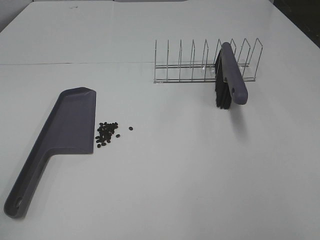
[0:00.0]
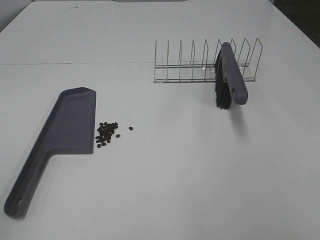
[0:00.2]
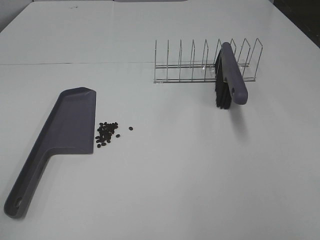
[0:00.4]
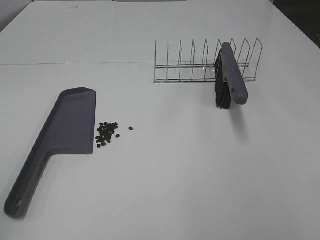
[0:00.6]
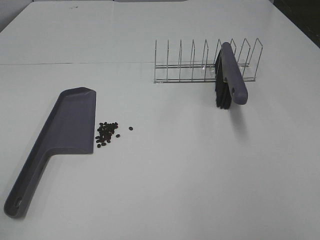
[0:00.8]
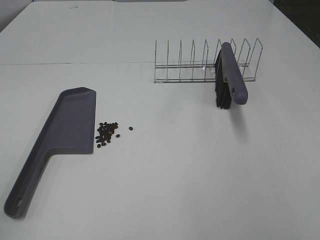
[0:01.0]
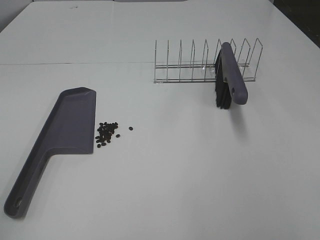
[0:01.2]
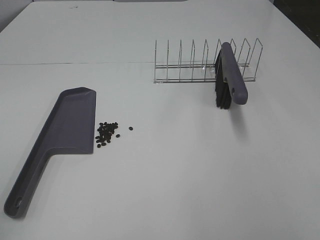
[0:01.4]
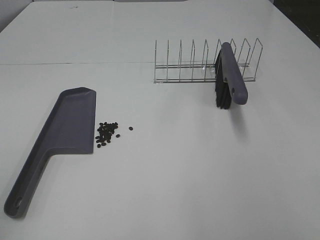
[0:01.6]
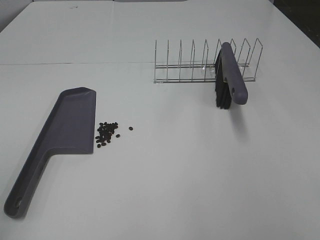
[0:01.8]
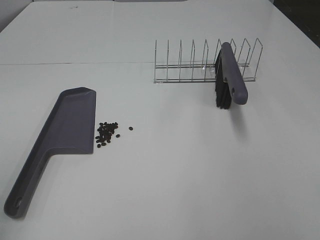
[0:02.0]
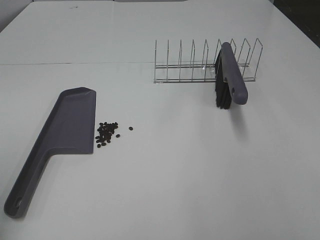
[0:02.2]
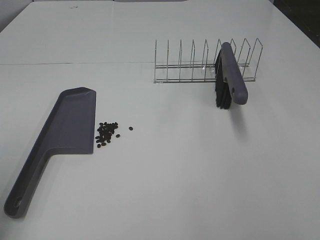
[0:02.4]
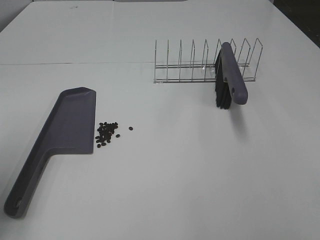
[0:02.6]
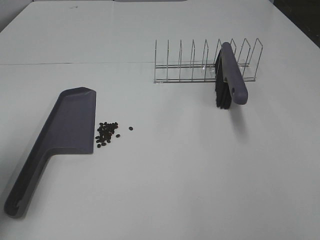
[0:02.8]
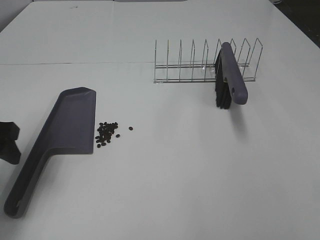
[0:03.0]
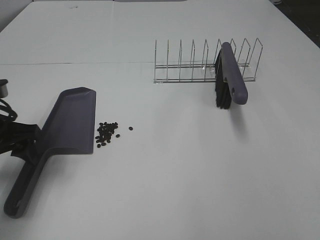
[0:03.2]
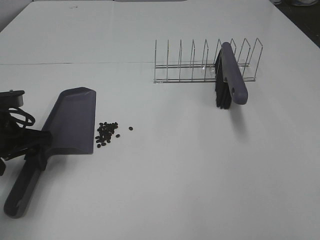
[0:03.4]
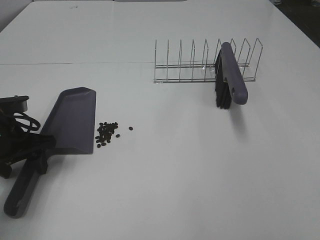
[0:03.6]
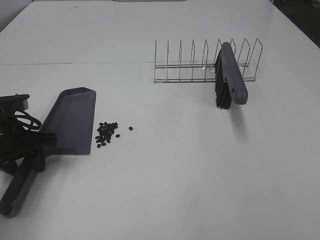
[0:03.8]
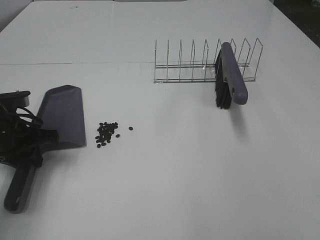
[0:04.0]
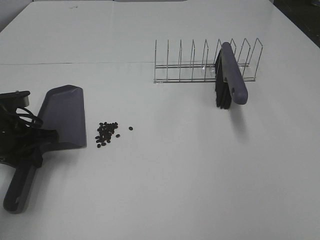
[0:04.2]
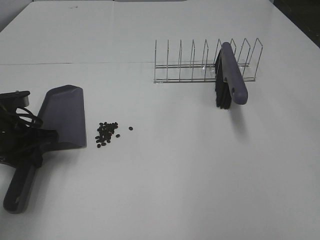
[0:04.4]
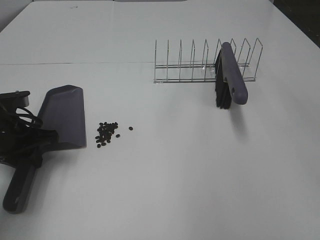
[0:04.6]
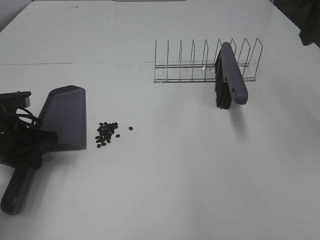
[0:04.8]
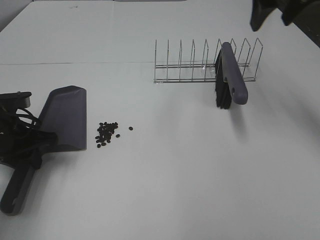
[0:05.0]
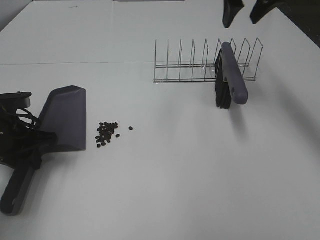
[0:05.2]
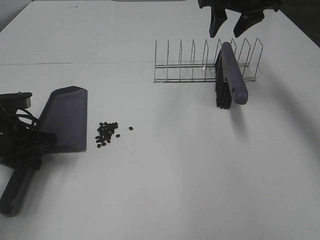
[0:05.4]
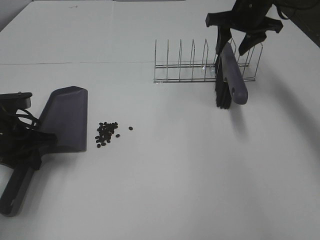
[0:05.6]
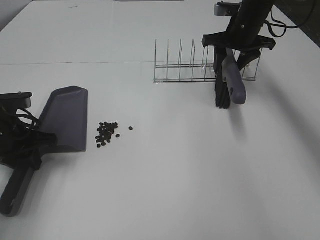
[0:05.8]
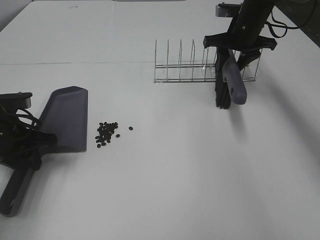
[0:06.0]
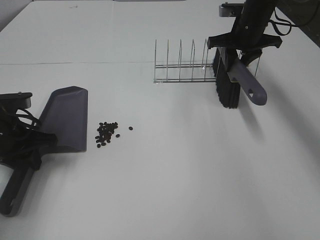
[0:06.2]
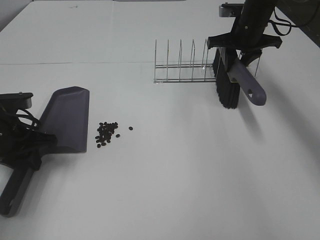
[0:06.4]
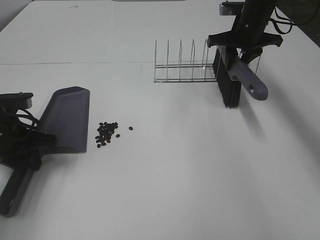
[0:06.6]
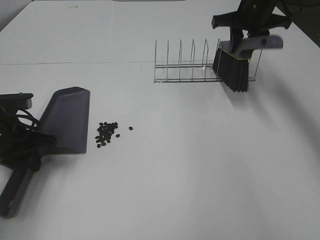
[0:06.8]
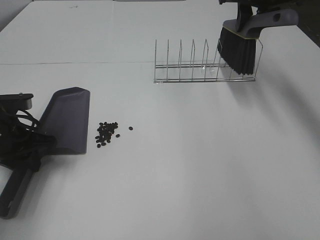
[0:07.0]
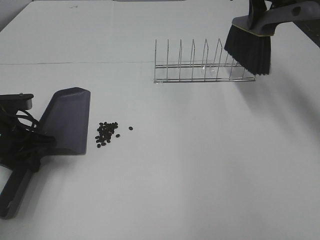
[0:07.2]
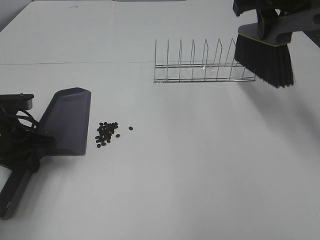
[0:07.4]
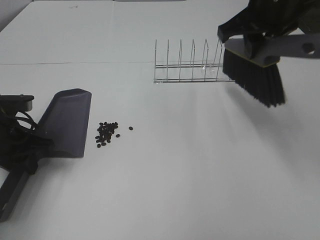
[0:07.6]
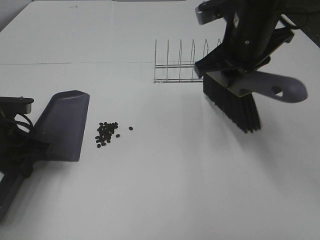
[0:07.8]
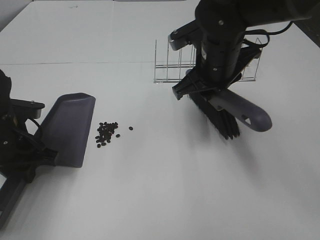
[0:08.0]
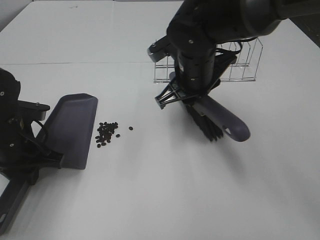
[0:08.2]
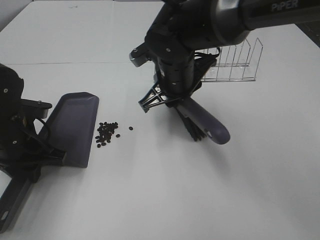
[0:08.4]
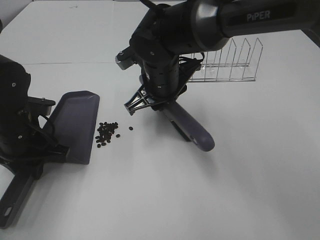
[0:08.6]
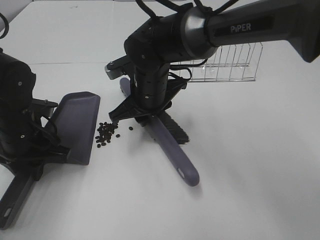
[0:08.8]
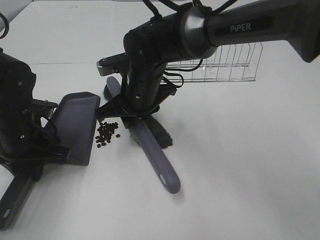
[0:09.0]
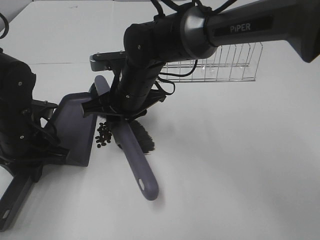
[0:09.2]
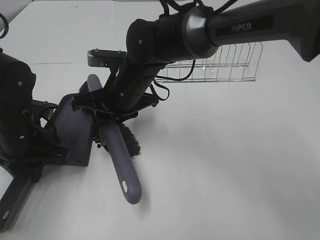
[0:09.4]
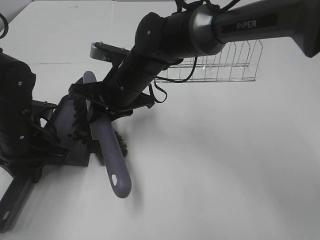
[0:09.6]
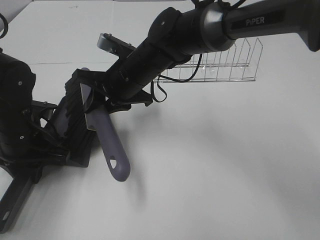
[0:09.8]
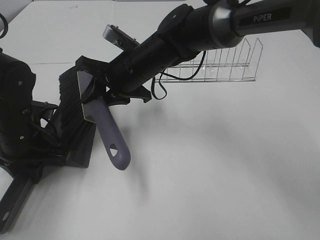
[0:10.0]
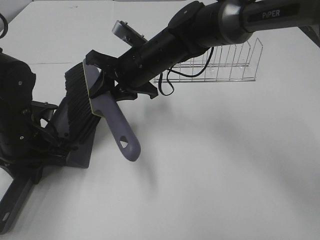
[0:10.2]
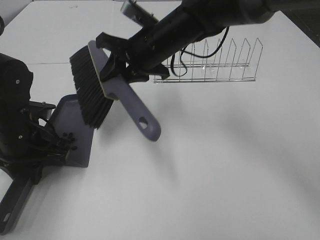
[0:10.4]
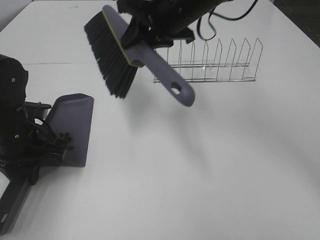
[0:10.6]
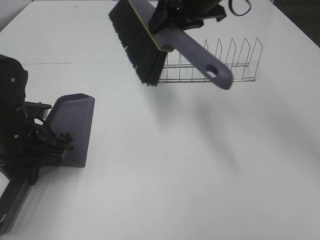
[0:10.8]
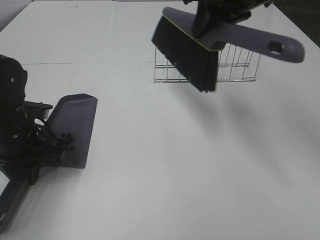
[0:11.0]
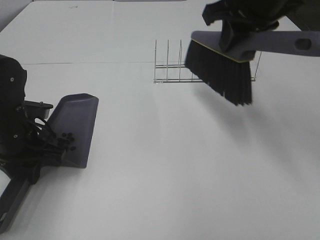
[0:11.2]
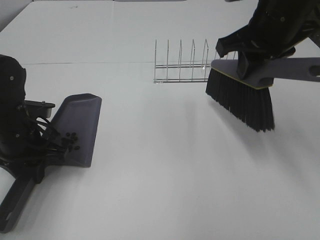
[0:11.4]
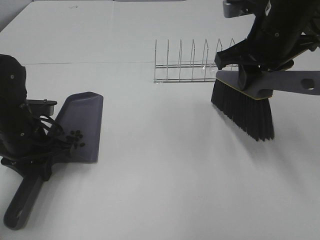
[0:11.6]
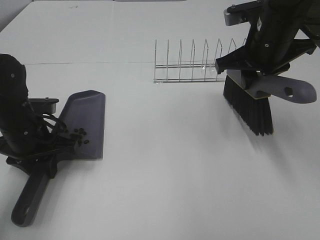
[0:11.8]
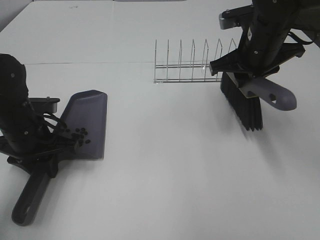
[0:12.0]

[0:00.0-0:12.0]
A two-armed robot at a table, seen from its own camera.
Task of the whole recording: Sweep Coffee Bean.
Step, 0.0 to 3.8 s: Left hand: grab the dustpan.
Step, 3.8 to 6.4 s: Right hand:grab the broom.
Step, 6.6 to 10.0 s: Right hand:sweep the coffee beans into the dustpan.
1.6 to 3.0 s: The left gripper heads forward and downward, covering some 25 cm.
3.0 to 4.4 s: The left gripper moves downward and forward, about 10 cm, and closes up.
4.4 to 6.0 s: The right gripper is displaced forward and downward by approximately 40 cm, and closes.
6.0 to 7.6 s: The right gripper is displaced backward and upward by some 20 cm.
7.6 to 9.0 s: The right gripper travels to the left and downward by about 25 cm.
9.0 to 10.4 s: The right gripper heads upward, covering approximately 5 cm.
10.4 to 12.0 s: The right gripper heads to the right, covering some 15 cm.

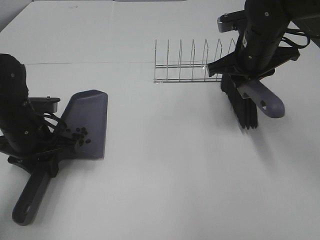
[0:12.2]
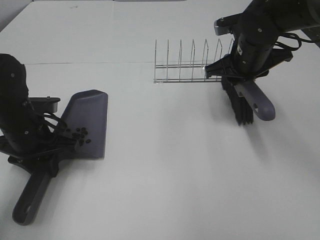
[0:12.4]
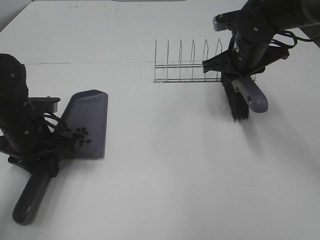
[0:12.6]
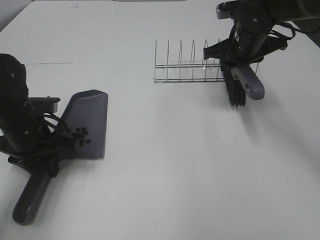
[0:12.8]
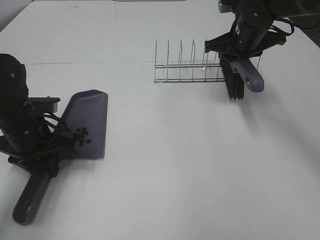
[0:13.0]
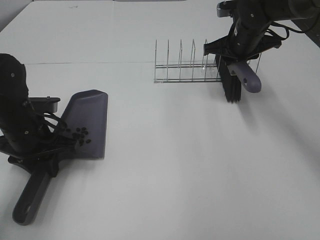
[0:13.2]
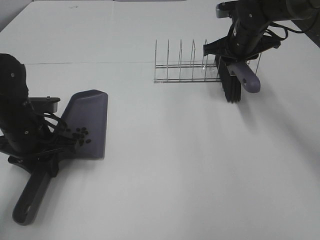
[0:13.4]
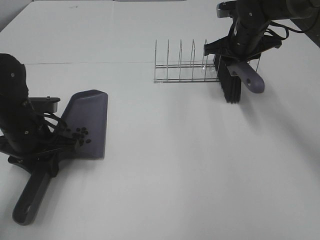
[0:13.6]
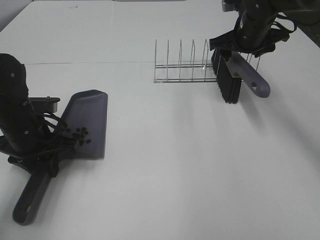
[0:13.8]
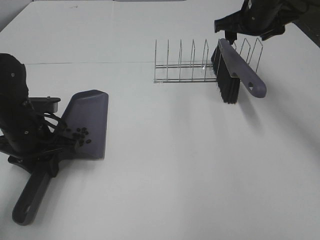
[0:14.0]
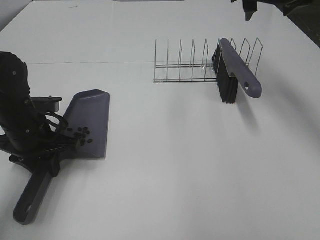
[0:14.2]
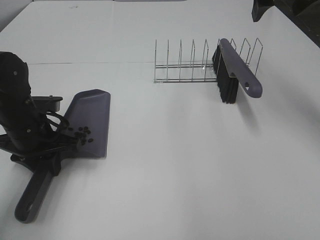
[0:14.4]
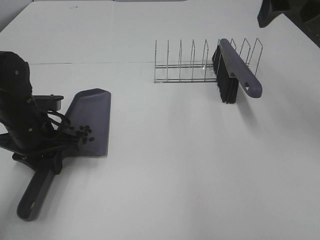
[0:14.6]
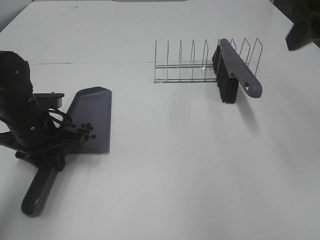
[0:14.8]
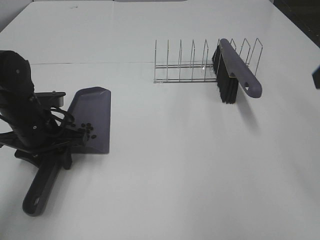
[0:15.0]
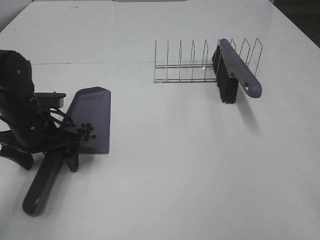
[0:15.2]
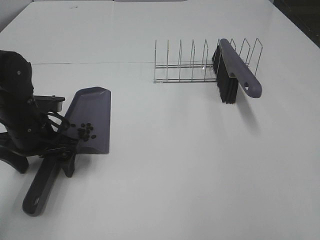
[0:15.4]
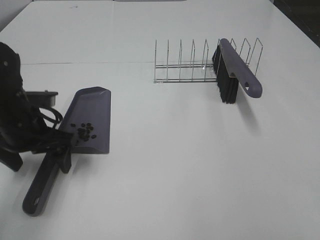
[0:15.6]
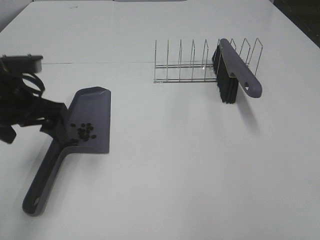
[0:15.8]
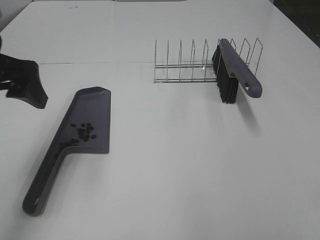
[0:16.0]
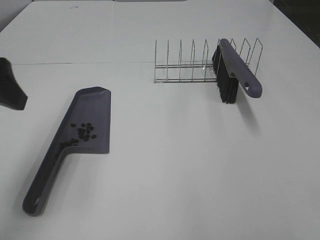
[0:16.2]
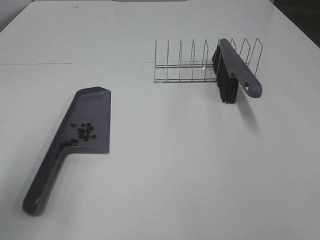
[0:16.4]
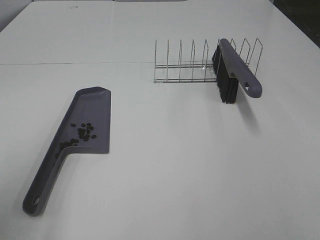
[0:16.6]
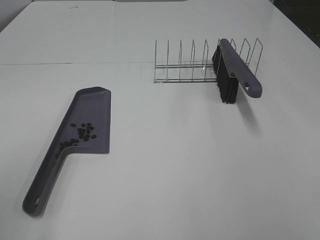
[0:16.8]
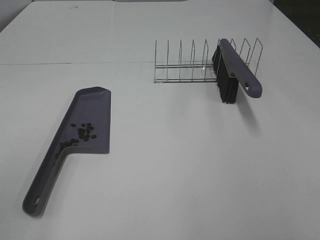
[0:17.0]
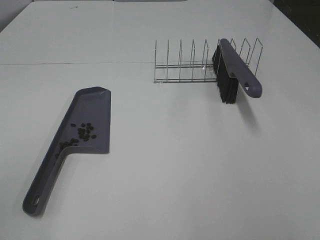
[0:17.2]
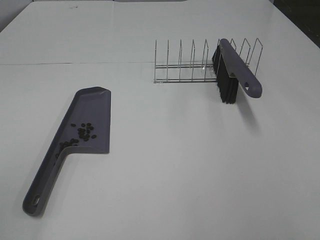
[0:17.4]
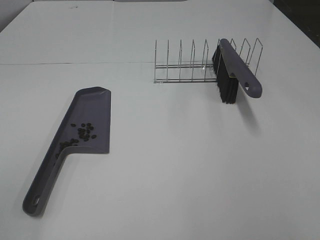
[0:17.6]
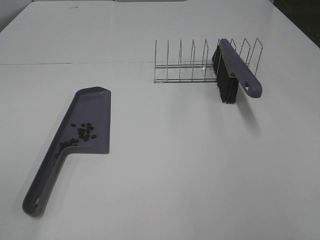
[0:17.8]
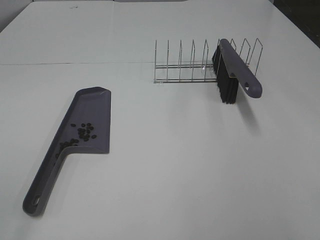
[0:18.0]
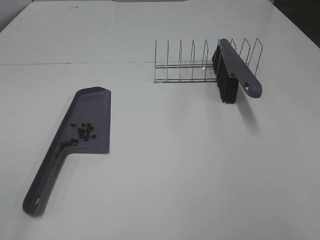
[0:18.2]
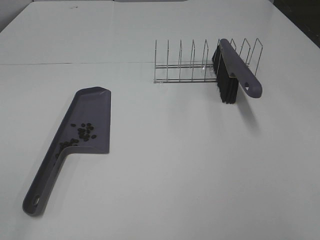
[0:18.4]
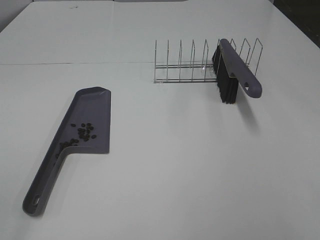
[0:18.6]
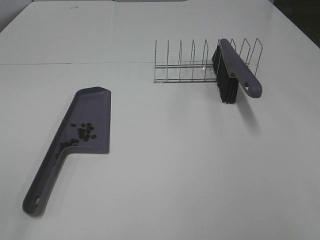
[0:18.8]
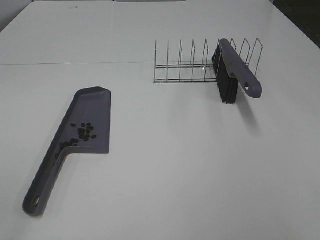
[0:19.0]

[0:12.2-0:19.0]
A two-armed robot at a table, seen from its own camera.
Task of the whole recording: Sweep Coffee Bean.
12.2 to 13.6 s: The right gripper travels forward by some 10 cm.
13.6 to 15.0 s: The right gripper moves backward and upward, about 35 cm, and opens.
15.0 to 16.2 s: The left gripper heads upward and backward, covering approximately 25 cm, and opens up.
16.2 to 17.6 s: The left gripper goes roughly 20 cm backward.

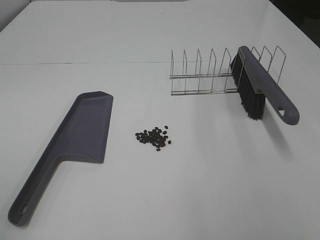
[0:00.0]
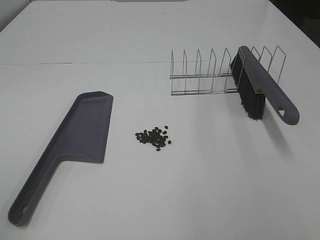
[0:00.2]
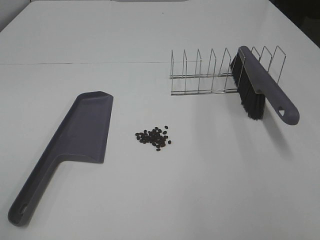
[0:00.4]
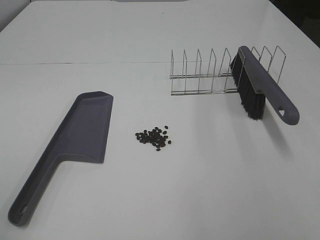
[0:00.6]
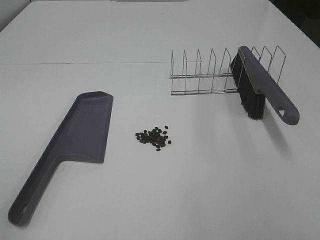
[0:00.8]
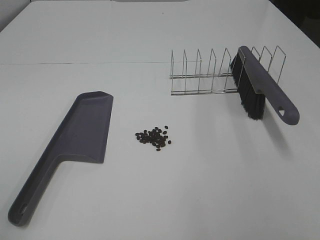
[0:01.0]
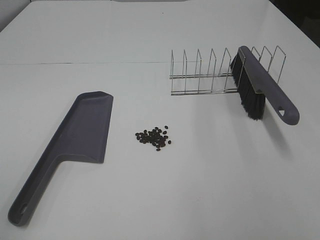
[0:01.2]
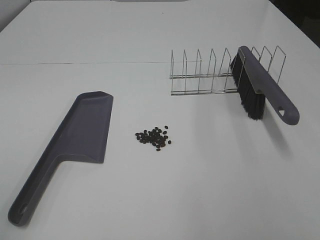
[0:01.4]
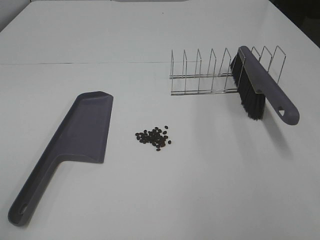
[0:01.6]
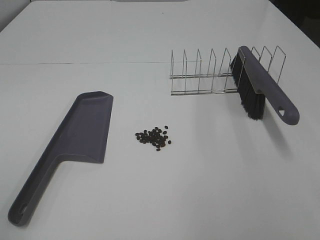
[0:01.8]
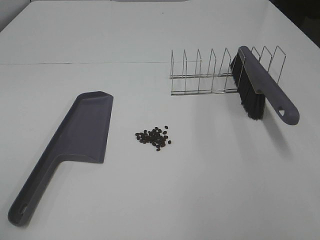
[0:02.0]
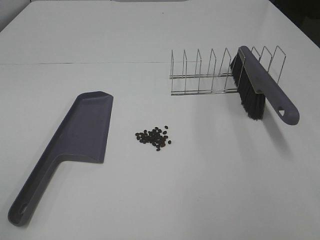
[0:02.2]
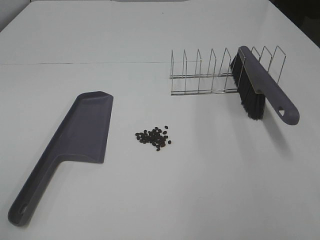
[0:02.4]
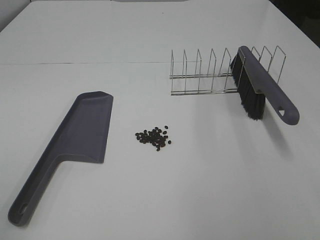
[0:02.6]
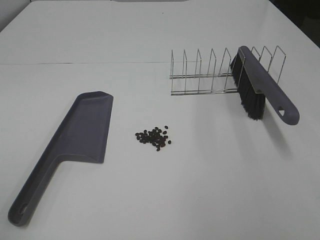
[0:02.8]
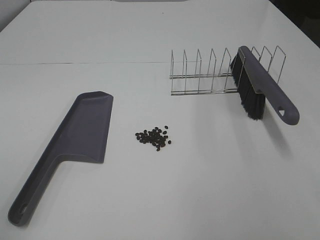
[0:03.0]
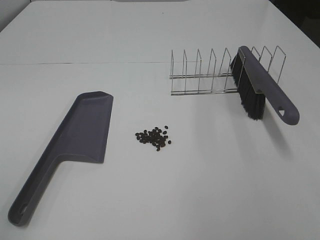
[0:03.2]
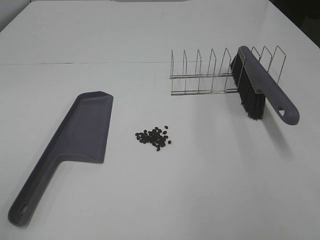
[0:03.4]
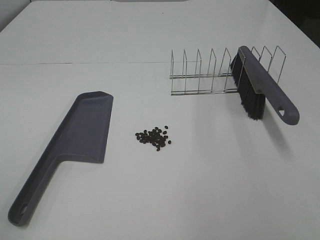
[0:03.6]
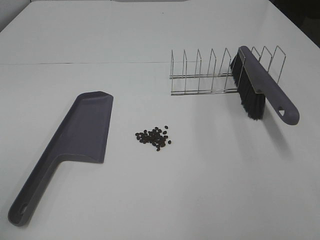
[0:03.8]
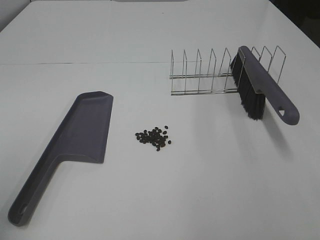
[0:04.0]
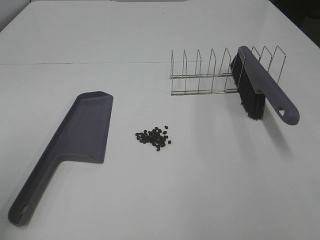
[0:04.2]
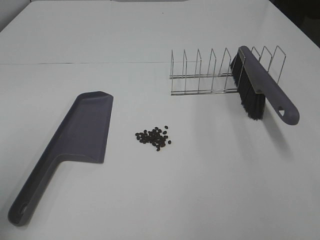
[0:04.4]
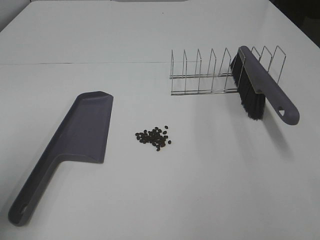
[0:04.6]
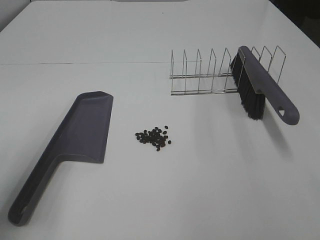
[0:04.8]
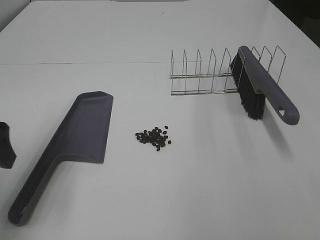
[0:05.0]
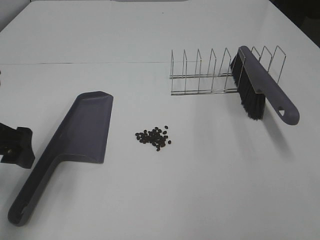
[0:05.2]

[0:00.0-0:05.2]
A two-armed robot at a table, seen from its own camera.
Task of the whole recording: Sweep Coffee Bean.
1.8 to 3.4 s: Both grippers stay put.
3.4 to 5.2 s: The left gripper is displaced forward by about 25 cm.
